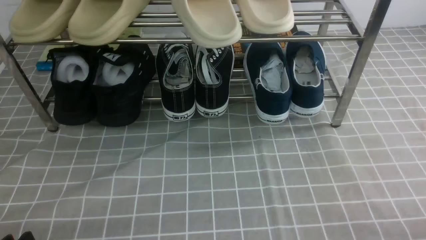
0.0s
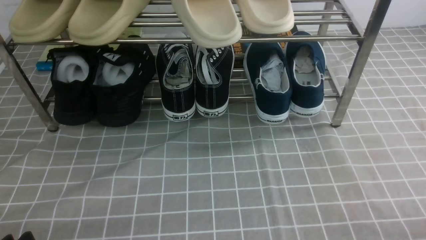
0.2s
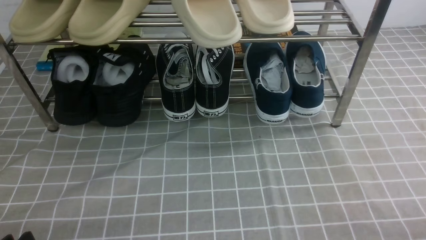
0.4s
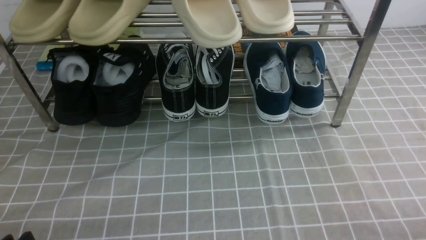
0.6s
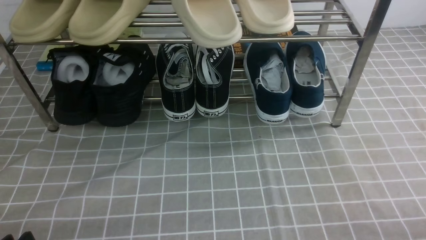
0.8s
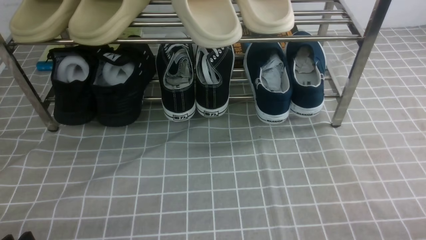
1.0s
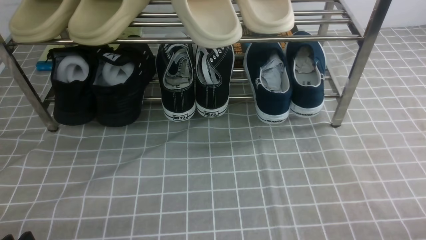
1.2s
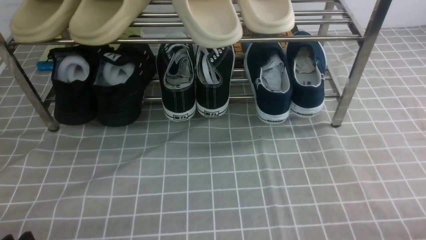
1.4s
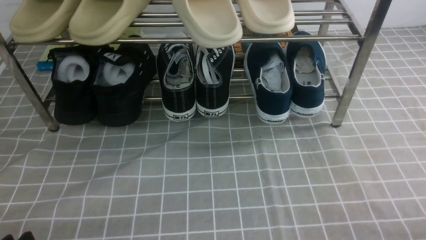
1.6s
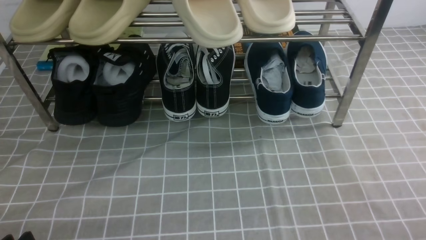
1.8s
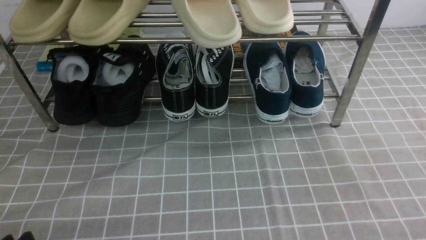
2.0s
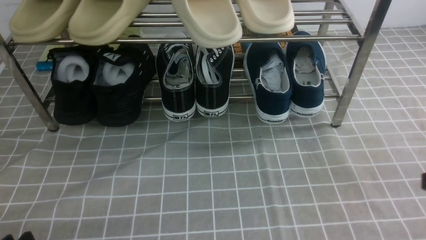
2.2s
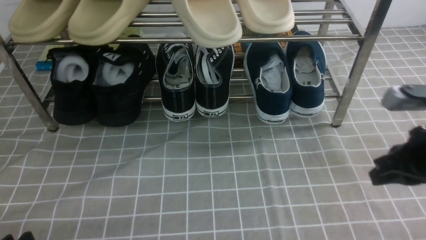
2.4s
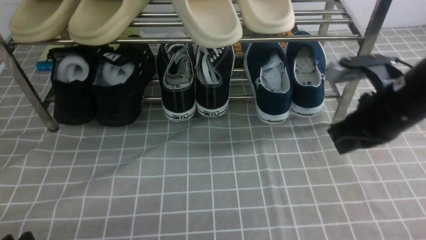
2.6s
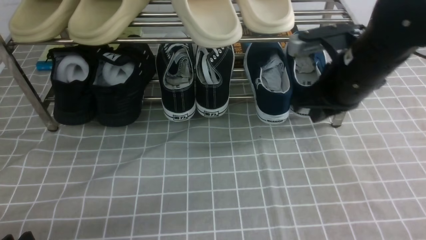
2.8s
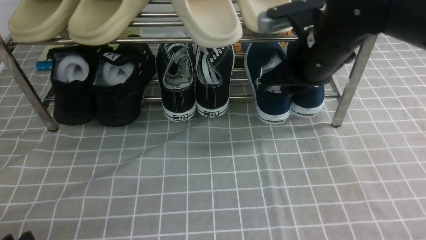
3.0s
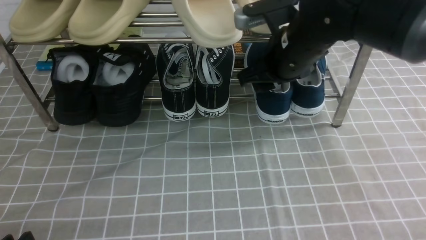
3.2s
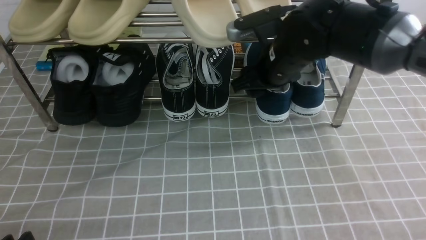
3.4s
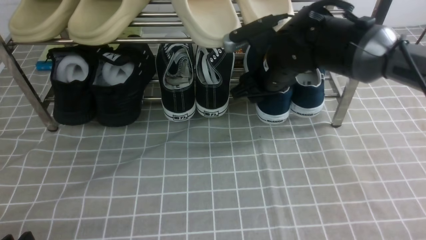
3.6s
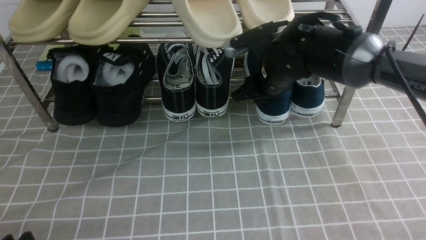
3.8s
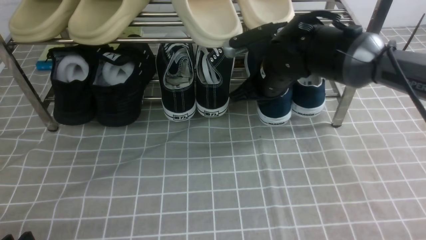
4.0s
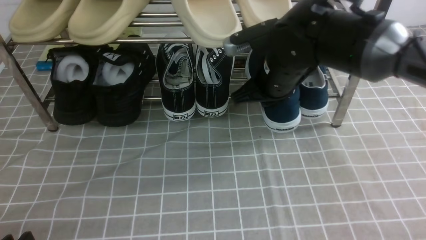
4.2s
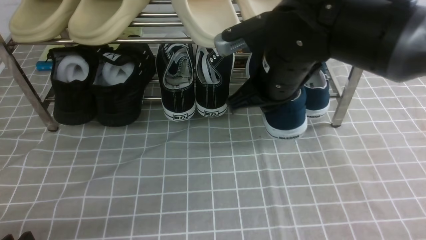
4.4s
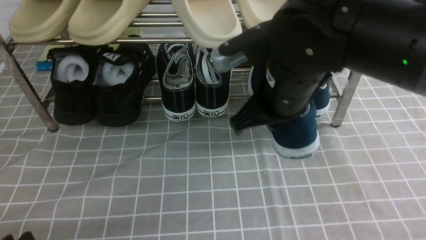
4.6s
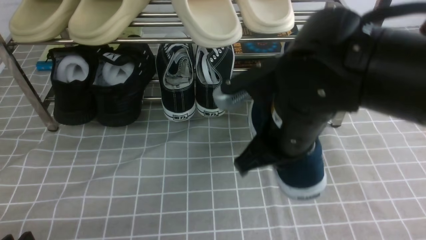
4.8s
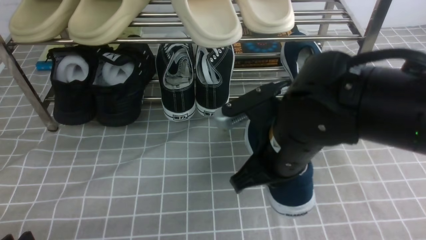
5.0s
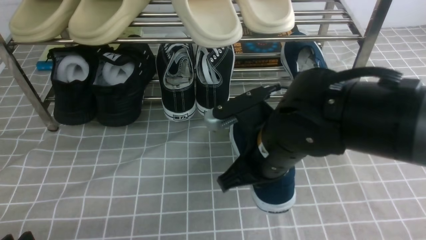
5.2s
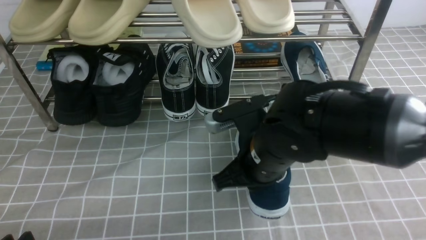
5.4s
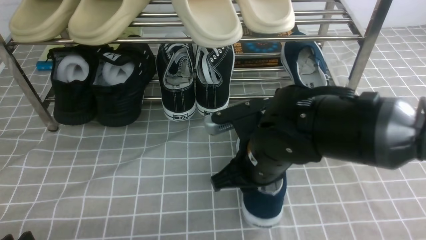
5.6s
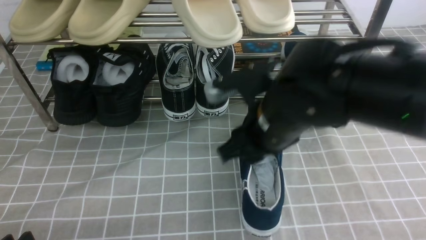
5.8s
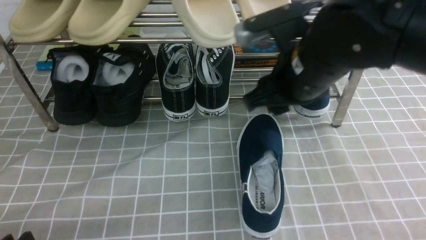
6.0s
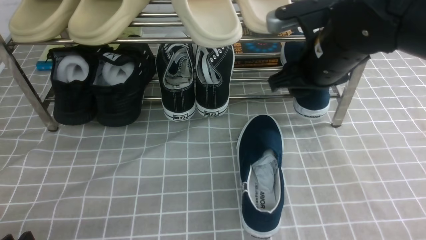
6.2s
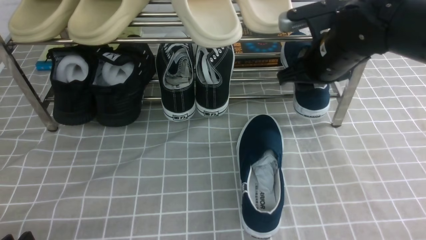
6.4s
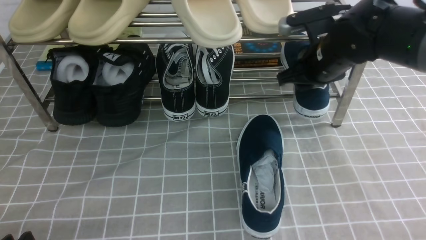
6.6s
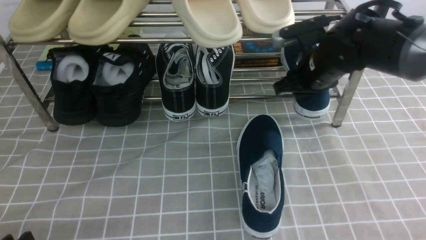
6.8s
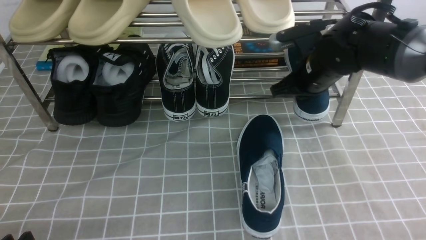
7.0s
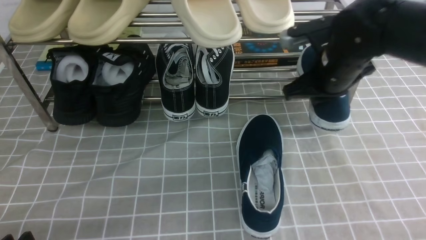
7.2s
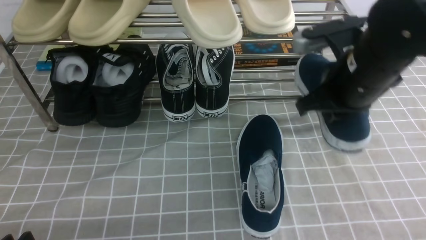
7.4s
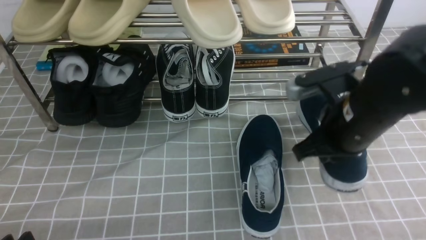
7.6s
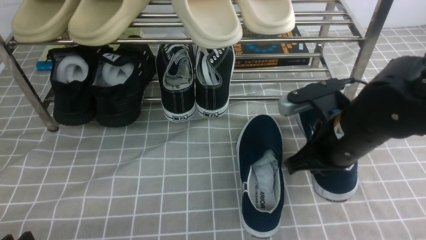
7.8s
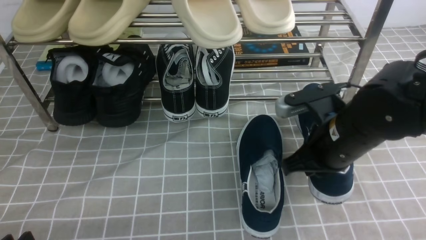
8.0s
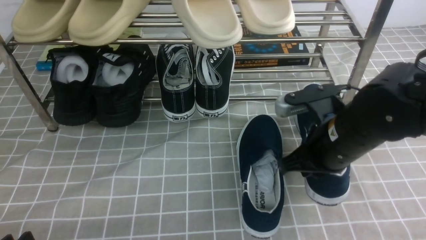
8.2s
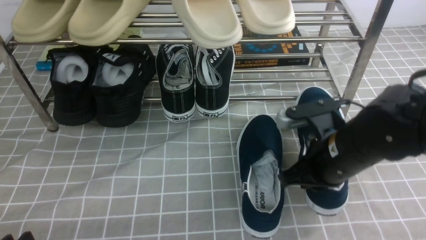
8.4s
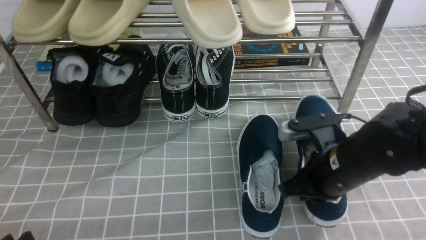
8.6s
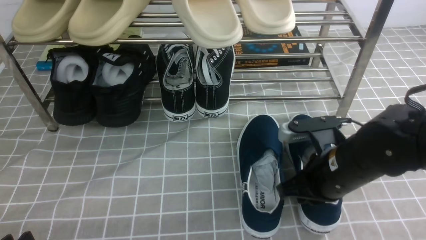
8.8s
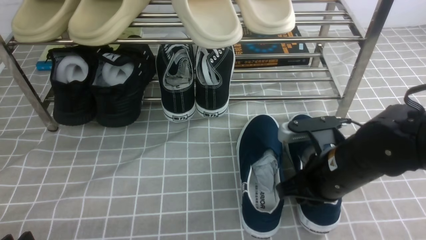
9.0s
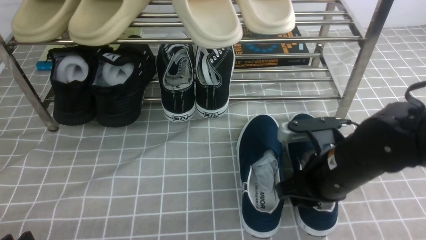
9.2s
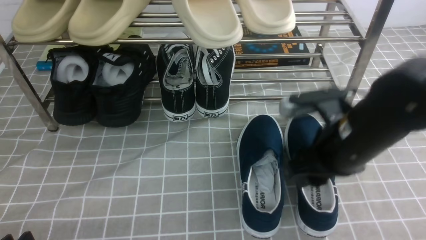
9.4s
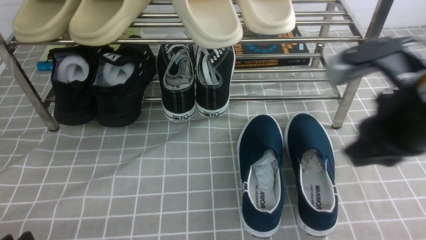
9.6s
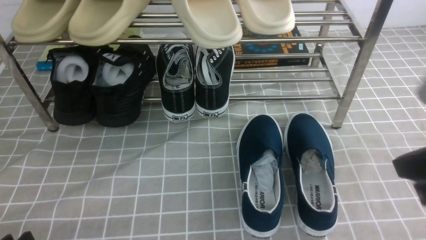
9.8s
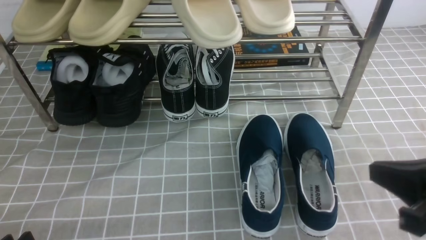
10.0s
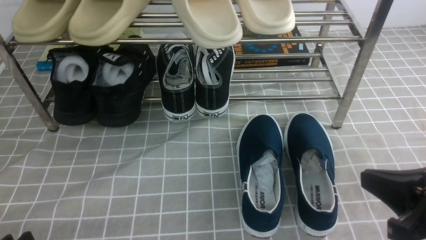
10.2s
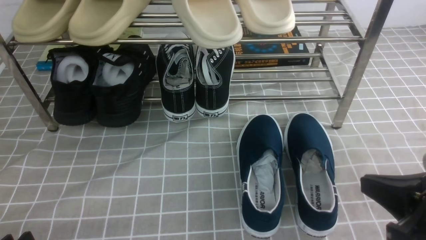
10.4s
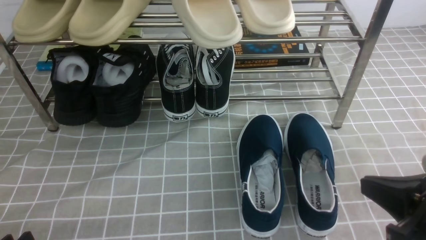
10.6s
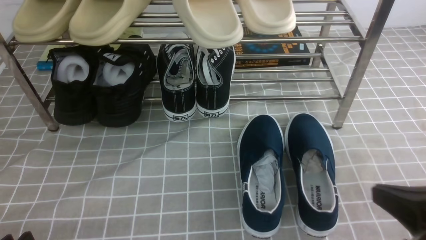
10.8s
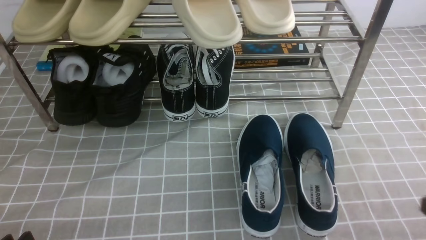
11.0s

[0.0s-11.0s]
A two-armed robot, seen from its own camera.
Step, 0.0s to 4.0s: use the right arm to clamp a shoe on the right side of the shoe rack.
Step, 4.2s to 5.8s: use the right arm to take out the clamped shoe from the shoe rack and put it down.
Step, 6.2s to 6.8s: use the right arm to clamp a shoe on the right side of the shoe rack.
Step, 7.0s to 9.2s: use the right arm to take out the clamped shoe from the shoe rack and put it down.
1.6s to 3.2s: The right gripper travels forward and to the left by roughly 35 cm, and opens.
3.2s to 4.8s: The right gripper heads backward, covering roughly 10 cm, and closes up.
4.8s to 6.2s: The right gripper goes about 10 cm forward and to the right, and opens.
6.2s to 7.8s: The right gripper goes roughly 10 cm backward and downward, and closes up.
7.8s to 9.4s: The right gripper opens its fingers.
9.4s to 11.0s: The right gripper is displaced backward and to the right by approximately 20 cm, and closes its fingers.

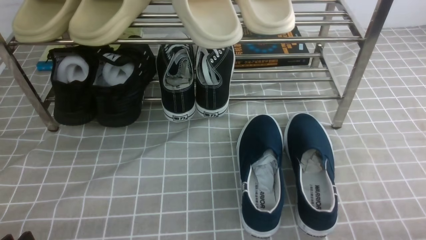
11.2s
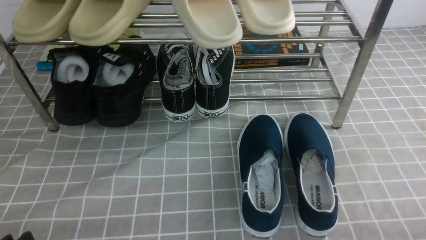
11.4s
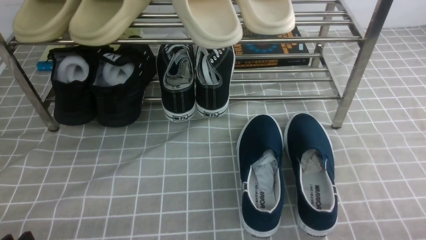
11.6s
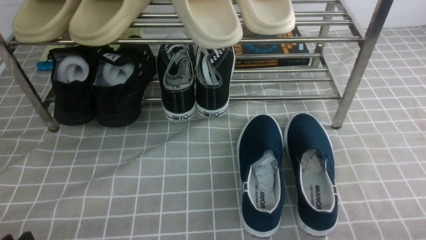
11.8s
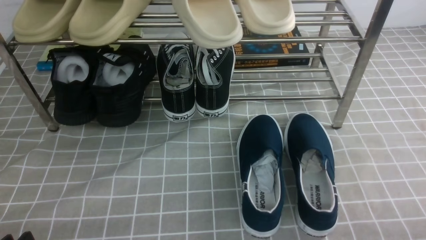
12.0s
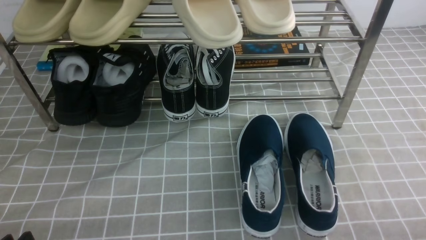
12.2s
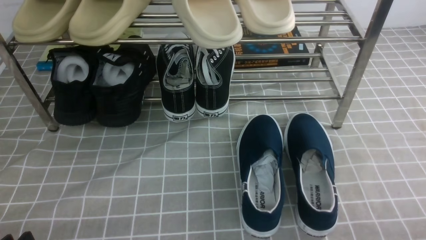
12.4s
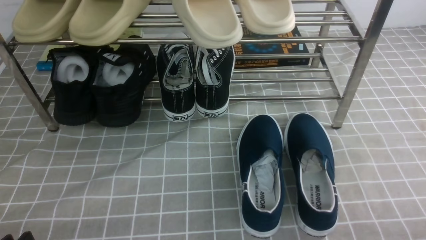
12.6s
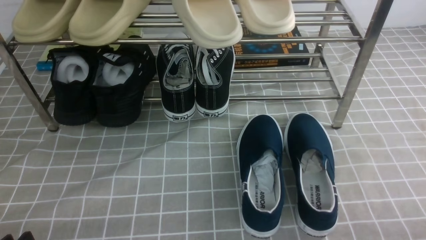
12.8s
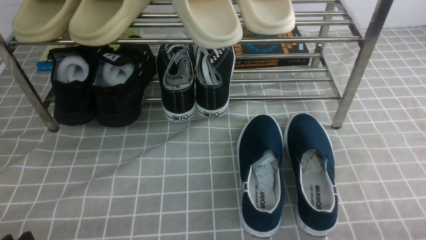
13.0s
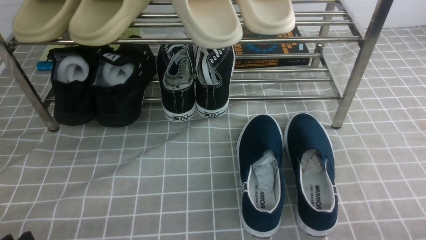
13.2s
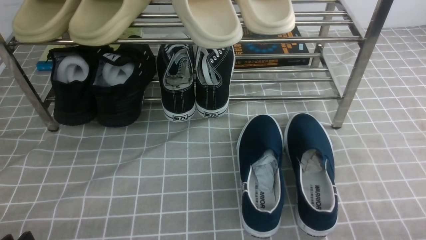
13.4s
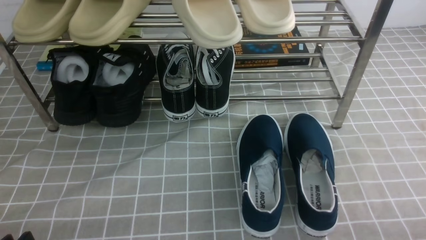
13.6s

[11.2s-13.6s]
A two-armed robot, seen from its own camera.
12.4s to 13.6s: Both grippers stay about where they are.
